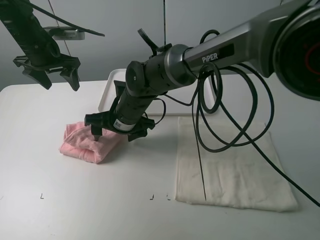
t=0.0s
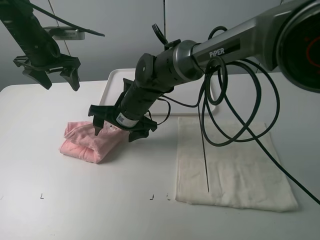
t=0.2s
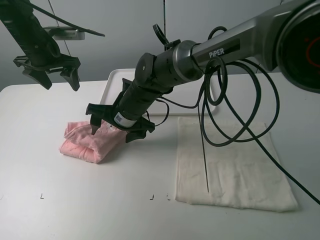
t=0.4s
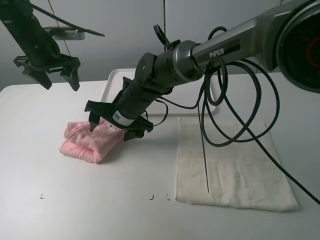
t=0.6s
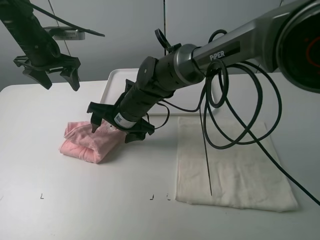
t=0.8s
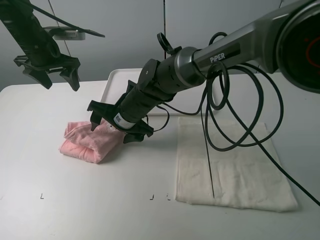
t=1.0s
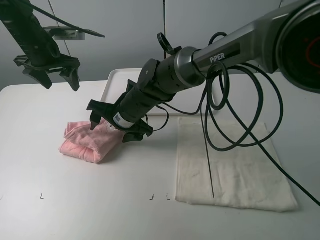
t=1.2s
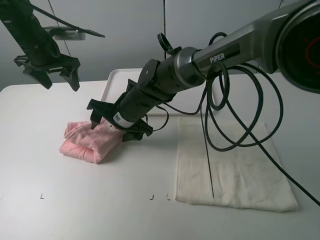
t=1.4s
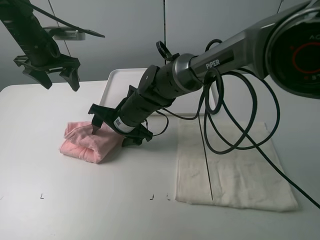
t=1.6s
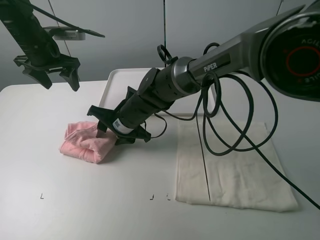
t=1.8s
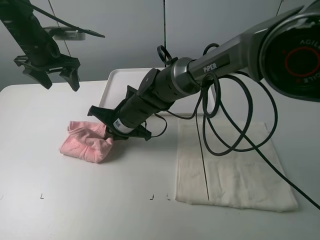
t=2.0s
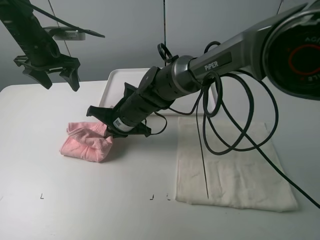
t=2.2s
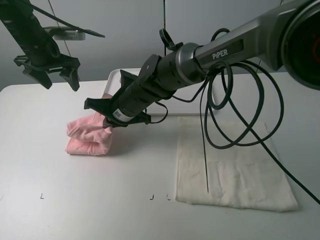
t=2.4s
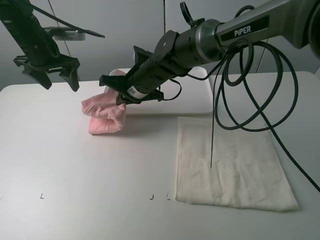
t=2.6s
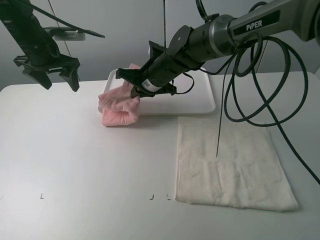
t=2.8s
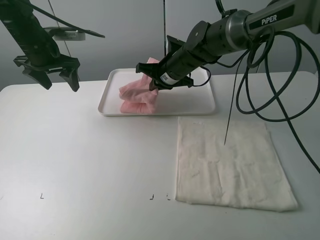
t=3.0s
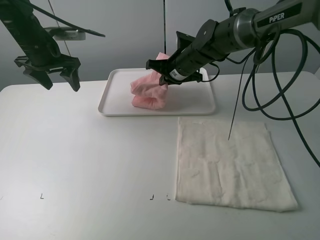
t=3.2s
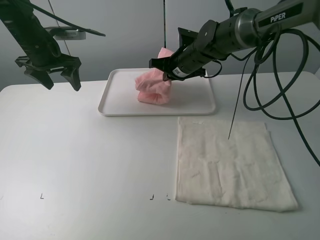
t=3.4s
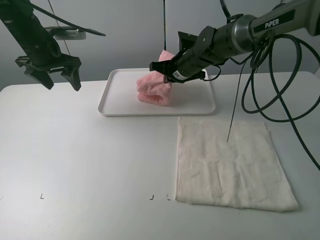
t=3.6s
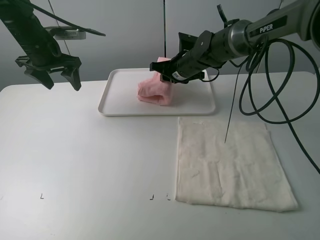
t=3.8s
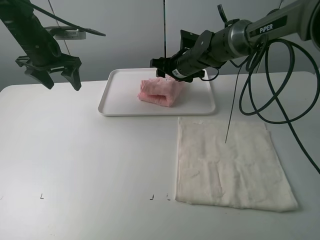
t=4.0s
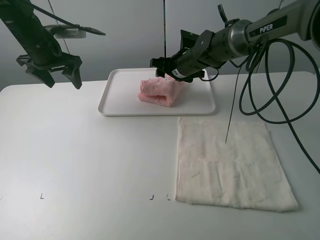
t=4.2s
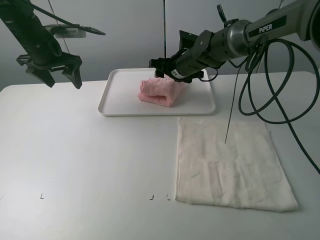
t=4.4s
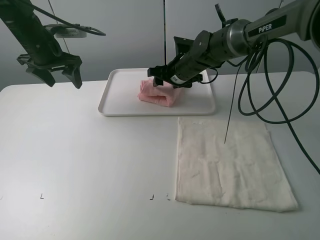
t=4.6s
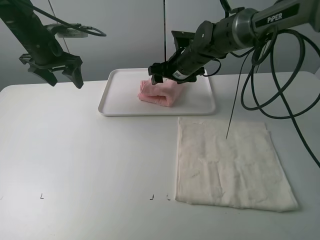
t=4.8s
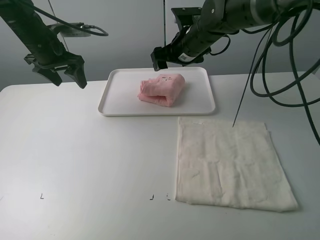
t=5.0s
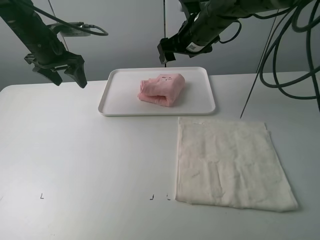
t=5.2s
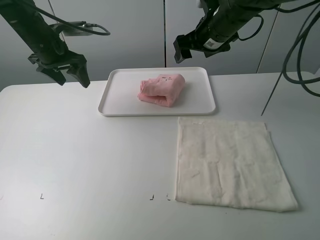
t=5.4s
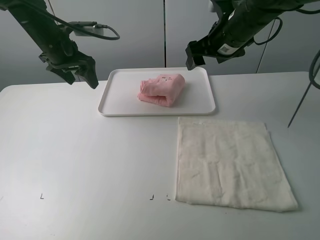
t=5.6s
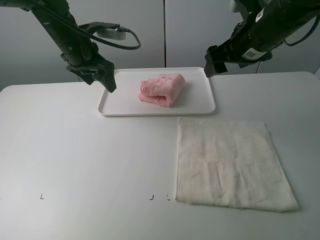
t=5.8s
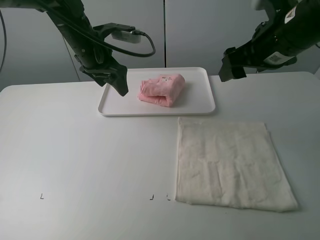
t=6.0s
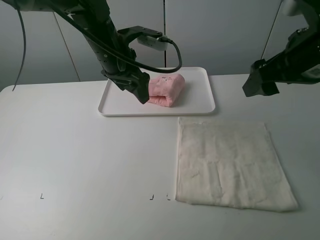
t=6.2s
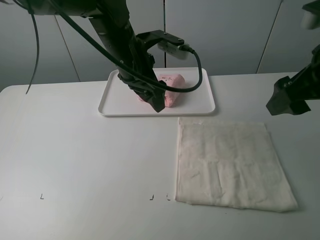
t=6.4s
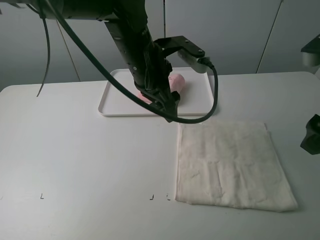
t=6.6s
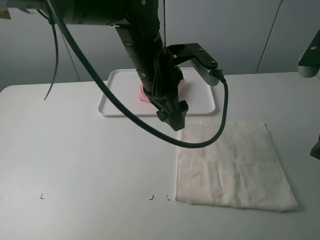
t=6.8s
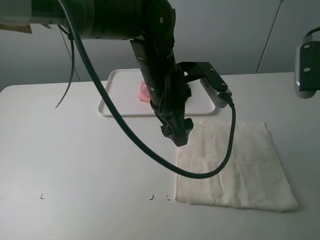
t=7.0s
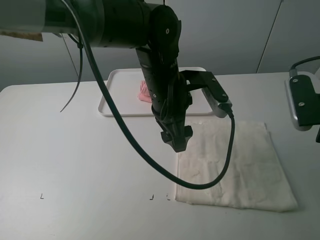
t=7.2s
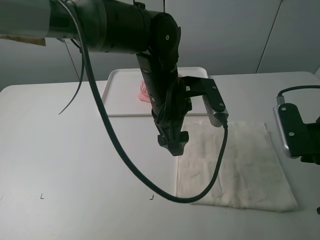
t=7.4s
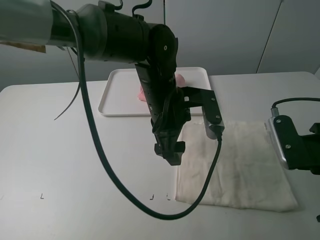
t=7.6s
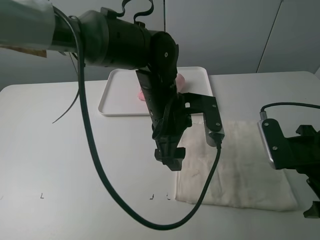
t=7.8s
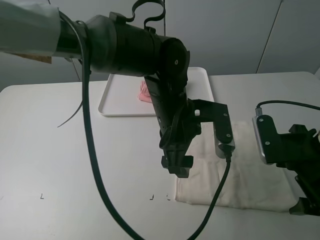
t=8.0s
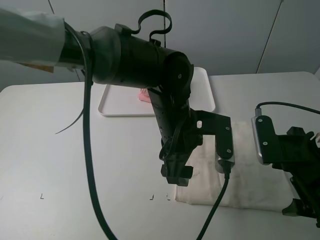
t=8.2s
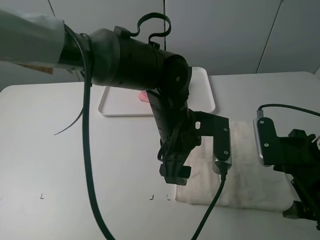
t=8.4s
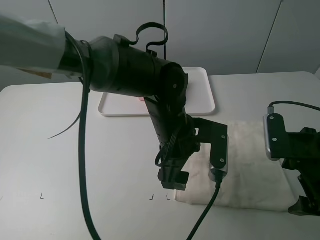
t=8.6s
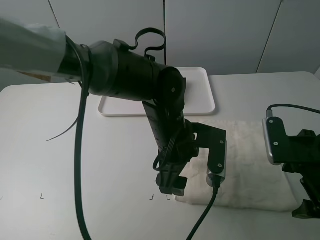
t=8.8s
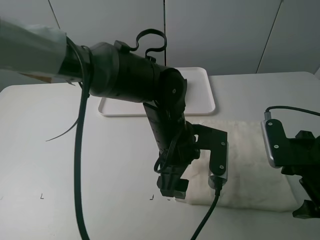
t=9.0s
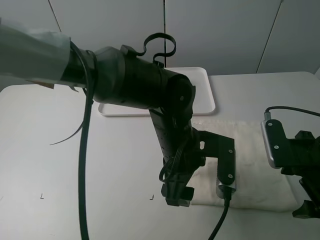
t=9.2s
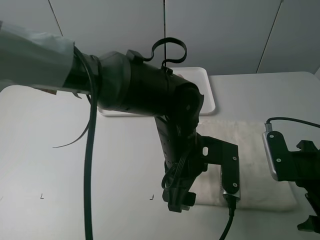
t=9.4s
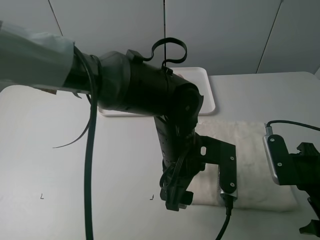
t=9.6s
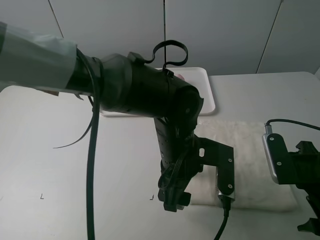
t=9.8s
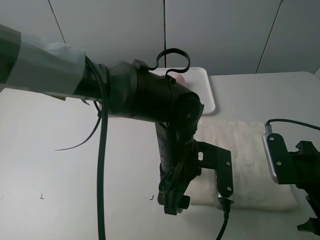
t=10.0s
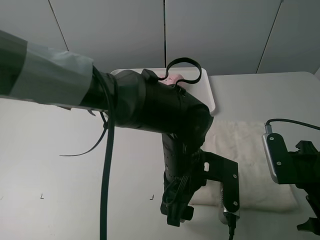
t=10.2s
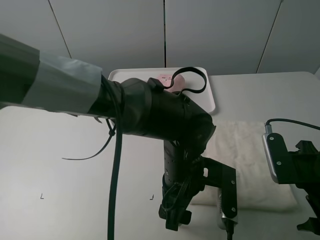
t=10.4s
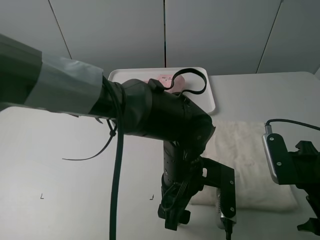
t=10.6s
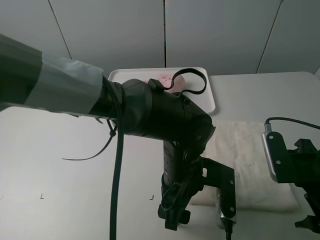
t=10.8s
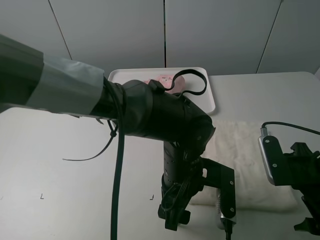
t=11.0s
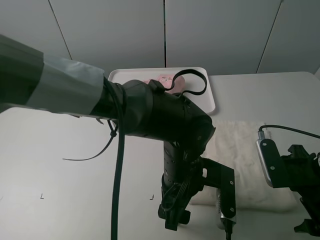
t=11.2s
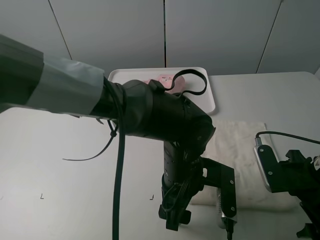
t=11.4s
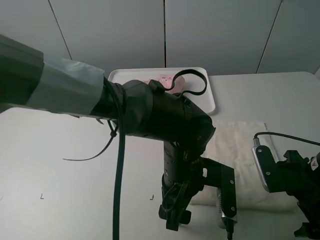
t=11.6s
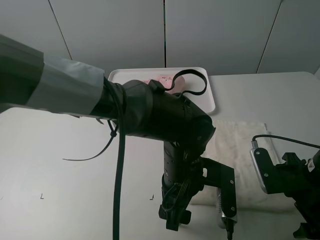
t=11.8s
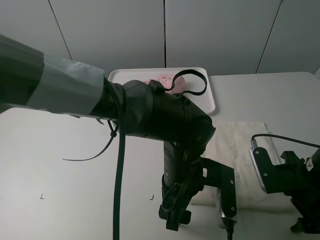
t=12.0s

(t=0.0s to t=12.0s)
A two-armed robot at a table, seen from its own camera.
Task of the whole recording: fold one of the towels by two grippers and place it on the tray,then fold another towel by two grippers and place it on the folded towel.
Step, t=0.2s - t=2.0s: Grasp the pink towel with the right gripper.
Step, t=2.2s - t=4.0s: Move the white towel to the plate with the right gripper.
t=0.0s - t=1.6s: The grippers stay close to where they were, moving slightly.
t=1.6s - t=3.0s: The right gripper travels to the right, forward and upward by approximately 15 cm, and closes up.
t=3.0s - t=4.4s: The right gripper opens.
t=4.4s - t=6.0s: The right gripper shifts approximately 25 cm backward, upward and to the right; the left gripper travels to the right by approximately 15 cm.
t=6.0s - t=7.6s: The left gripper travels to the right, backward and downward by approximately 20 cm. Meanwhile the right gripper goes about 15 cm backward, downward and to the right.
t=7.6s - t=9.0s: The left gripper ends up approximately 5 cm from where it was.
t=9.0s - t=10.4s: The left gripper ends up about 5 cm from where it was.
t=10.4s - t=12.0s: The grippers make only small movements.

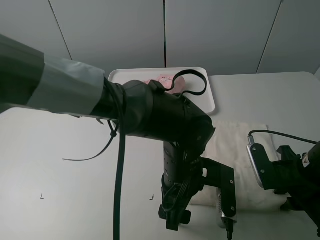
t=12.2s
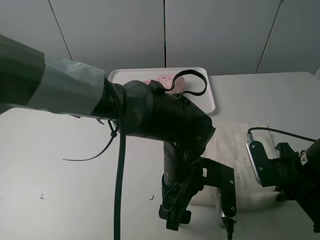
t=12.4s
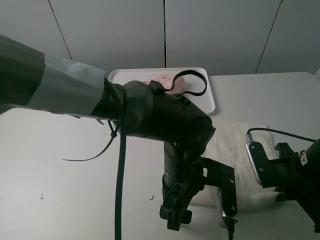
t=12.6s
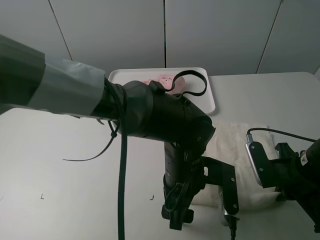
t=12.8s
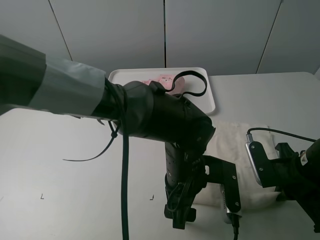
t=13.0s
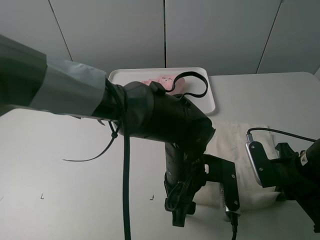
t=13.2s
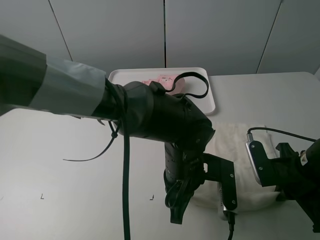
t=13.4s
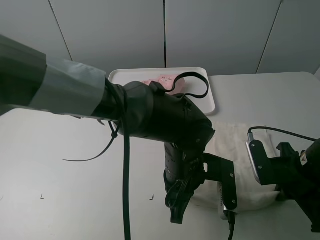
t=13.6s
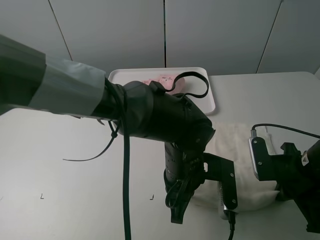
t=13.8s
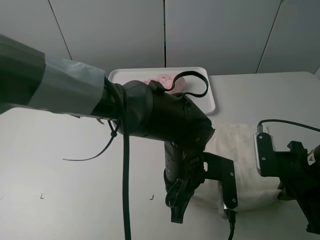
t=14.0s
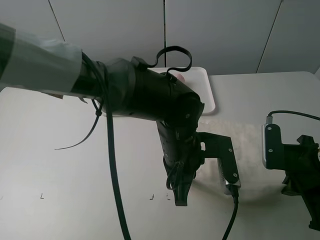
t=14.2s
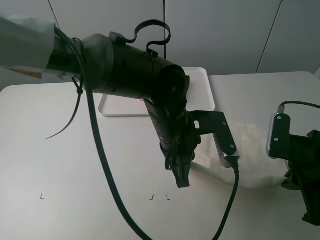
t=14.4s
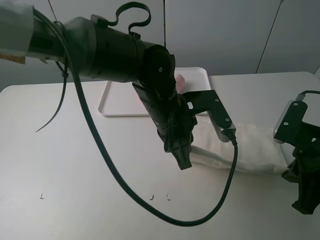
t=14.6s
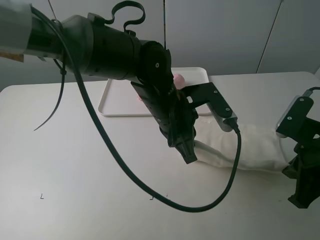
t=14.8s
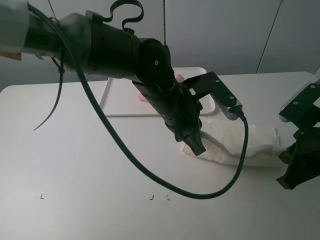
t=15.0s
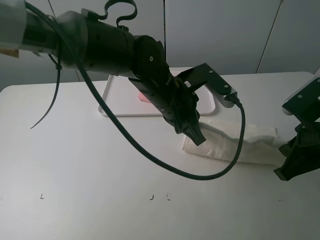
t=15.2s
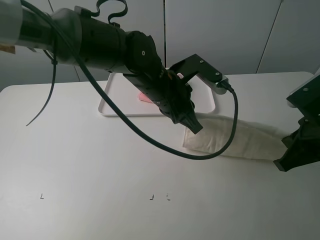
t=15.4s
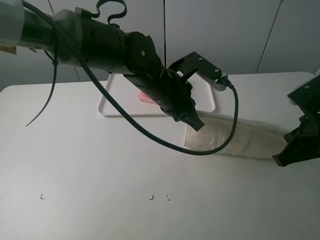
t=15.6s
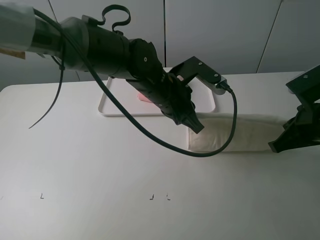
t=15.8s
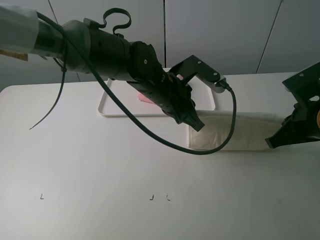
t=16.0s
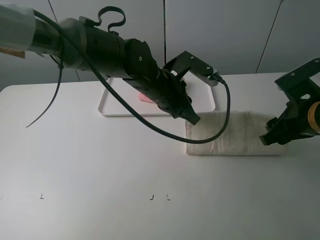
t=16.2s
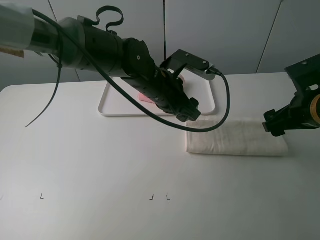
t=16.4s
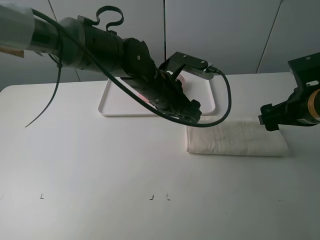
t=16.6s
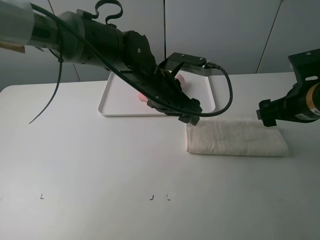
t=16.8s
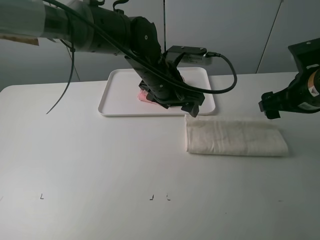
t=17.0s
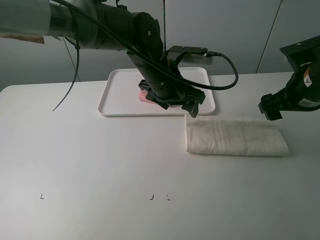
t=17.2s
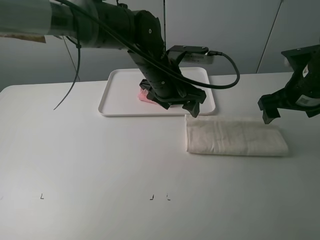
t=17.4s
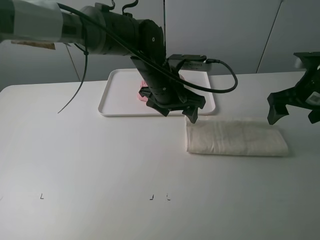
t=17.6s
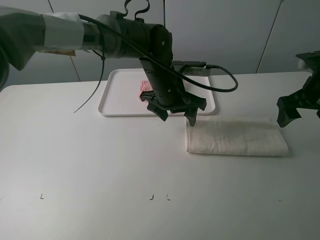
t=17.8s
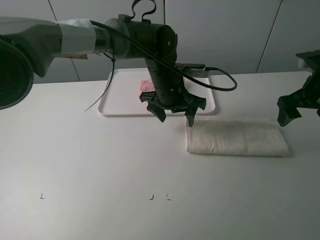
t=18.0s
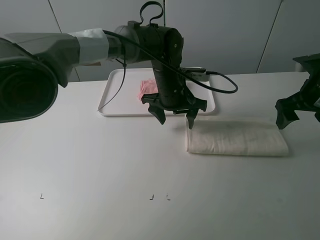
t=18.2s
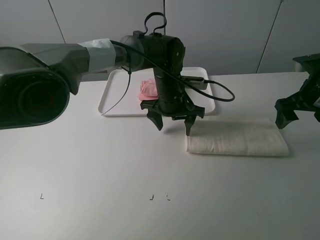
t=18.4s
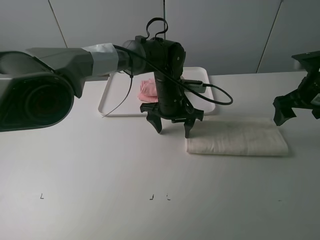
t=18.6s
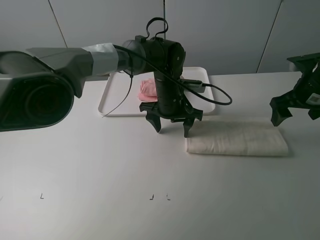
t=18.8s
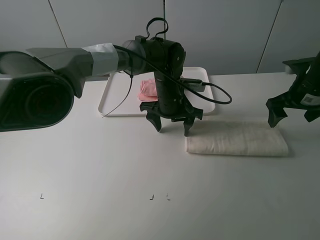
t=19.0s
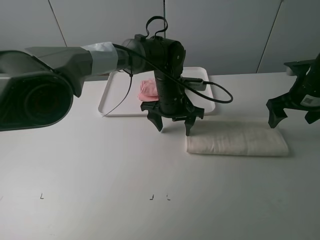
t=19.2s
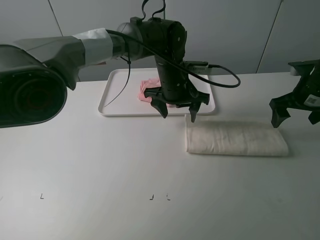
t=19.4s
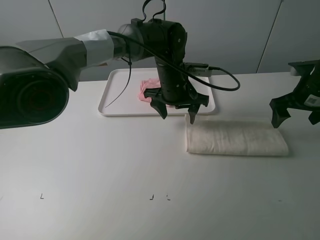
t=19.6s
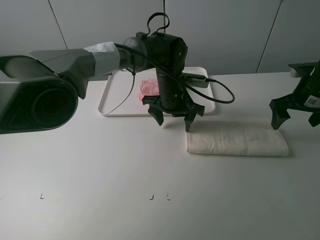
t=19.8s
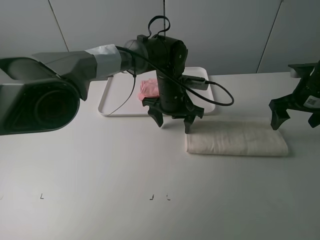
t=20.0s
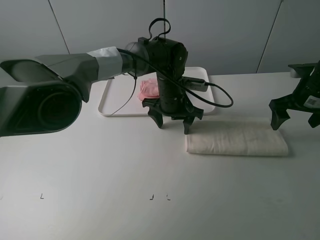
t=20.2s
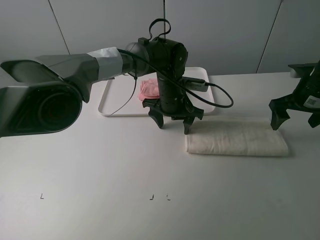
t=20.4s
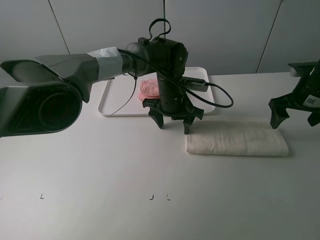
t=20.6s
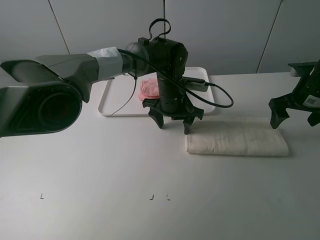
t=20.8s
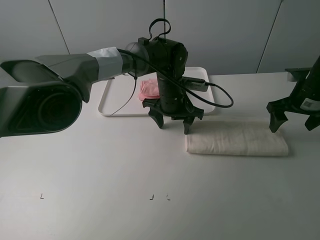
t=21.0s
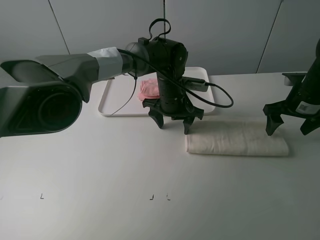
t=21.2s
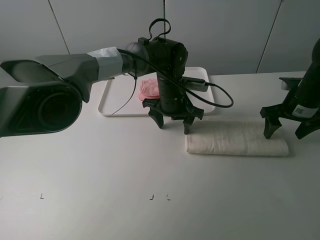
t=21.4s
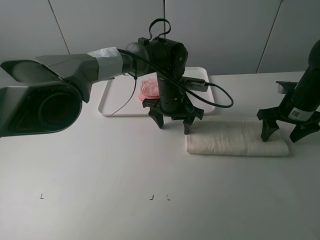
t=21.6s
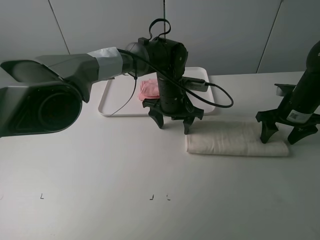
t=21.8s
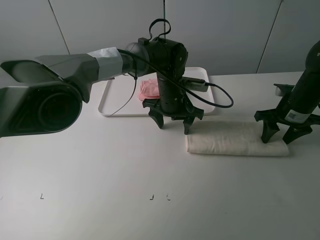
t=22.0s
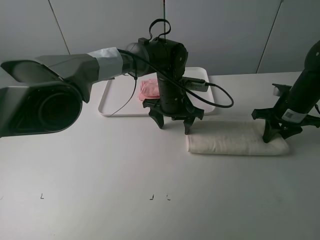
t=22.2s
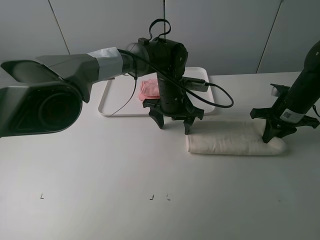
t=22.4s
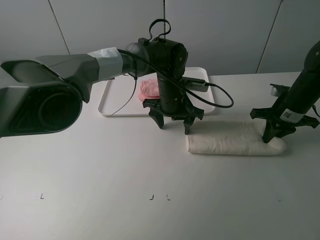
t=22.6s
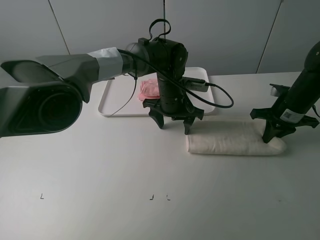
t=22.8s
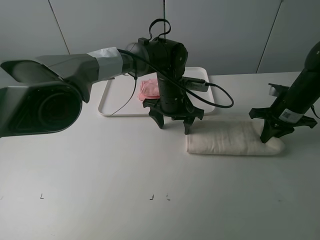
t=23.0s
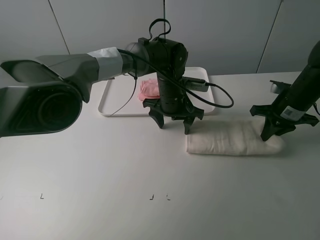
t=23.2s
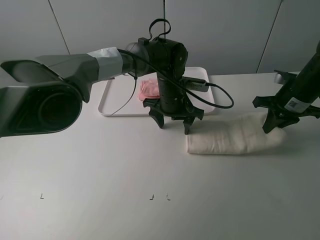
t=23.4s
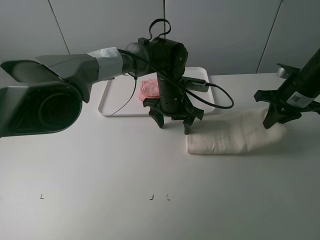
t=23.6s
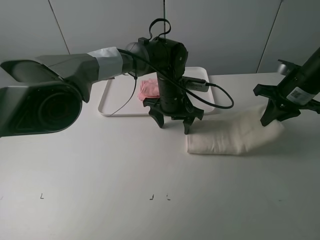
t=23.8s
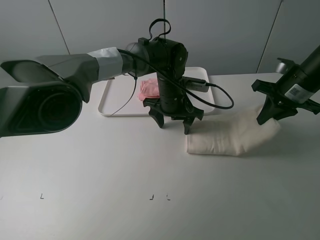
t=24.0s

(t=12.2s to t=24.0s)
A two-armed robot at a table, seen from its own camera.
Task of the whole recording: fold one of the towels by two grippers and place it on the tray,then fold another towel by two grippers and place it on the folded towel.
Step, t=13.8s - t=16.4s: Fold the white towel upwards with the left gripper.
Step, t=16.8s - t=18.6s: Press the white towel with the left gripper.
Step, t=18.8s - t=22.4s: Grasp the white towel with the right gripper.
t=12.2s - t=13.6s: The left gripper closes.
t=13.6s - t=15.2s: The left gripper heads forward and upward, covering about 10 cm, while the right gripper goes roughly 5 cm upward.
t=15.2s - t=16.6s: The left gripper opens its fingers. Meanwhile the right gripper travels forward by approximately 5 cm, and opens up.
t=16.6s - t=18.2s: The two grippers go roughly 5 cm forward.
t=18.2s - t=21.0s: The grippers make only small movements.
t=21.0s - t=22.6s: The right gripper closes.
t=22.6s - t=24.0s: The right gripper is displaced upward by approximately 10 cm.
